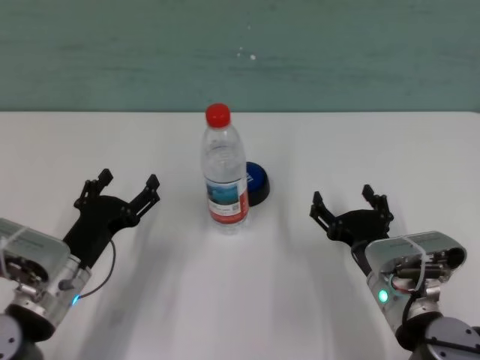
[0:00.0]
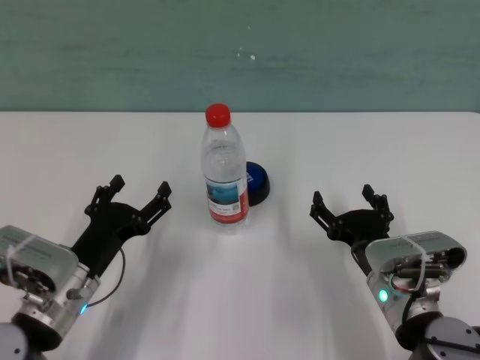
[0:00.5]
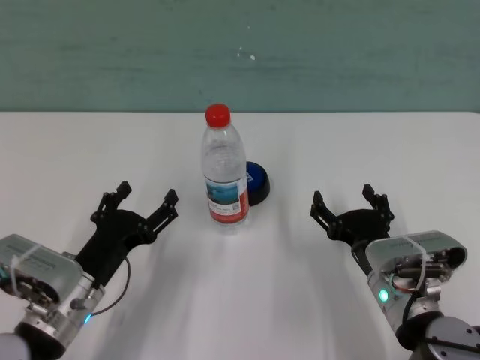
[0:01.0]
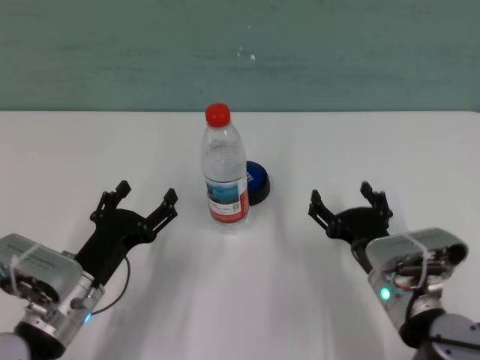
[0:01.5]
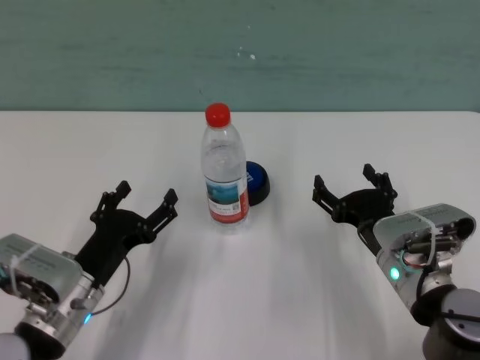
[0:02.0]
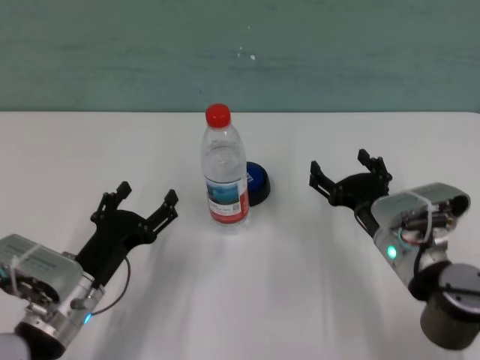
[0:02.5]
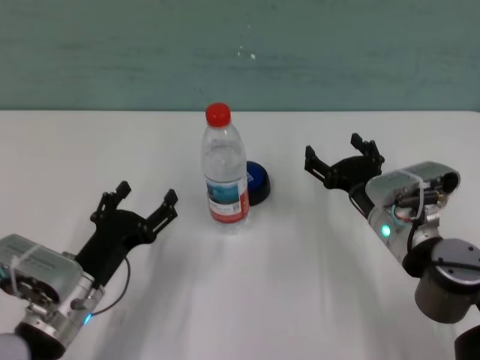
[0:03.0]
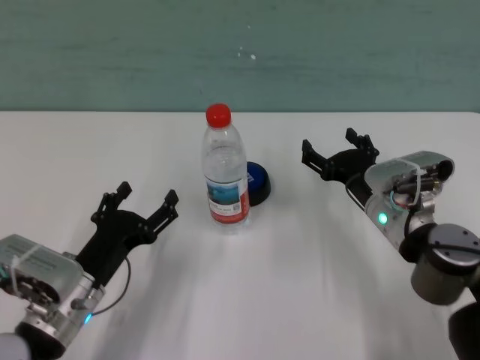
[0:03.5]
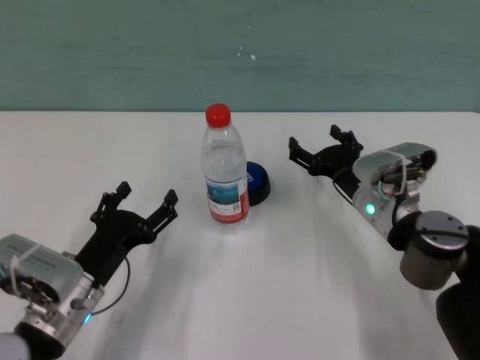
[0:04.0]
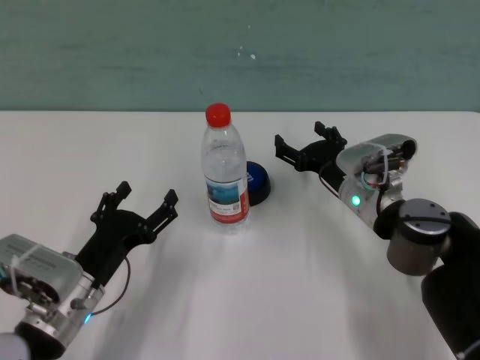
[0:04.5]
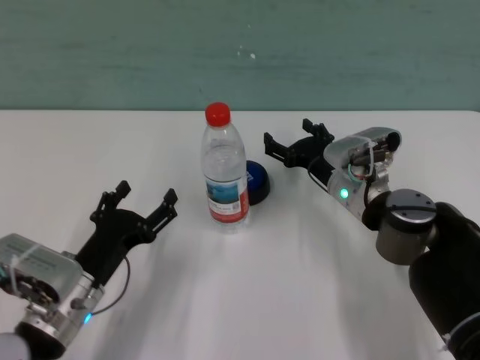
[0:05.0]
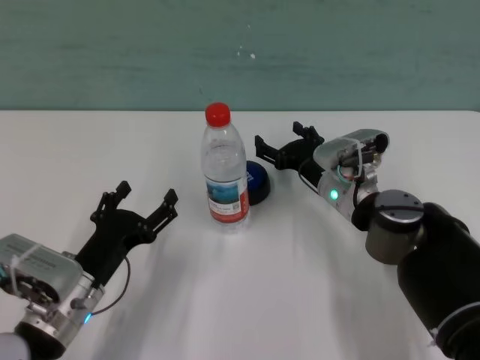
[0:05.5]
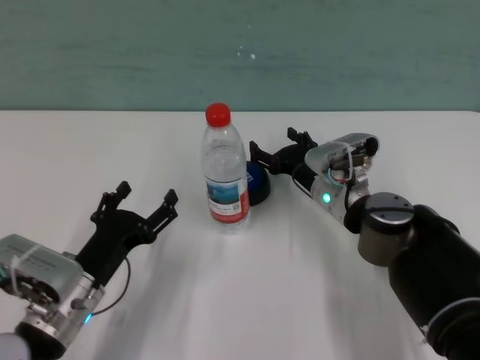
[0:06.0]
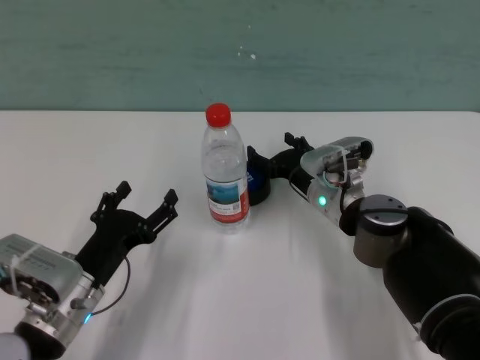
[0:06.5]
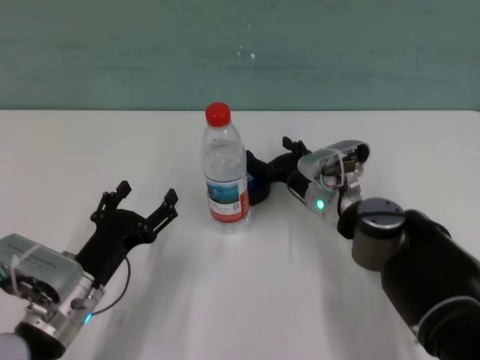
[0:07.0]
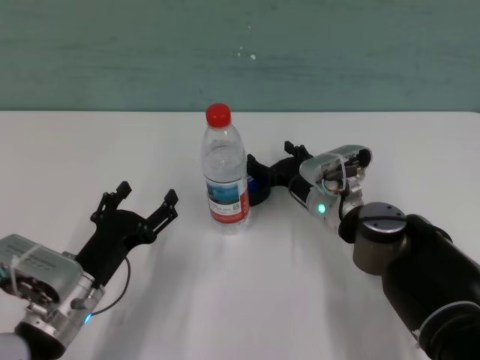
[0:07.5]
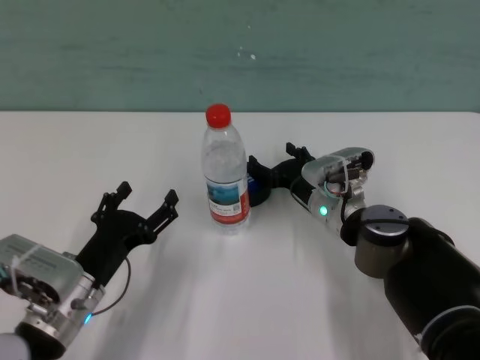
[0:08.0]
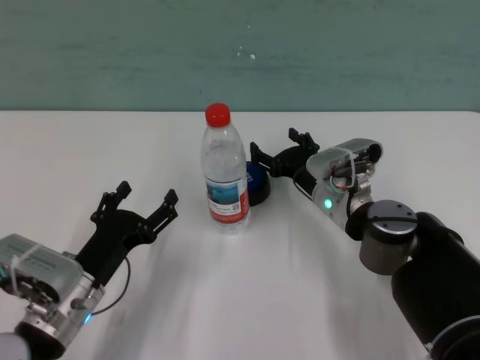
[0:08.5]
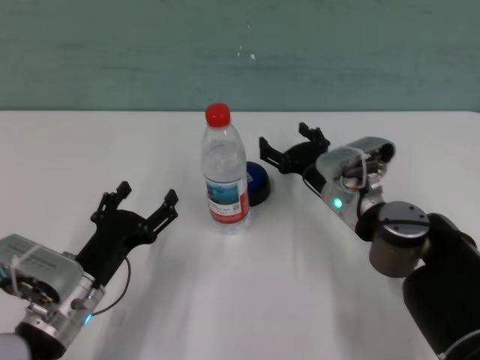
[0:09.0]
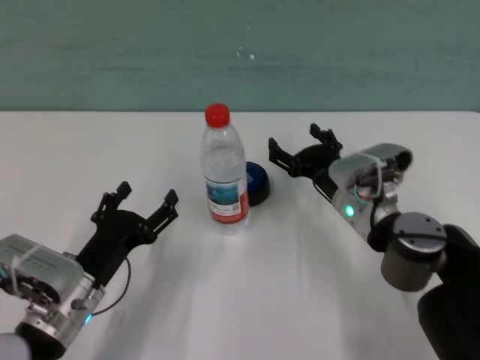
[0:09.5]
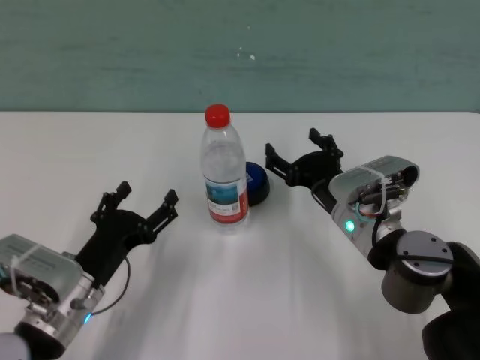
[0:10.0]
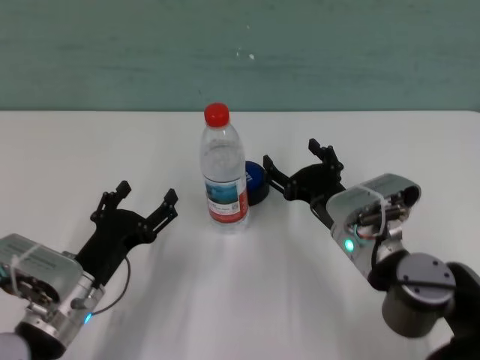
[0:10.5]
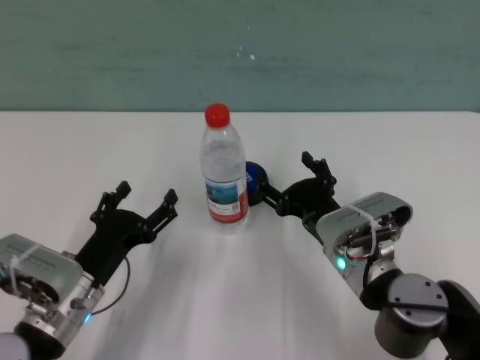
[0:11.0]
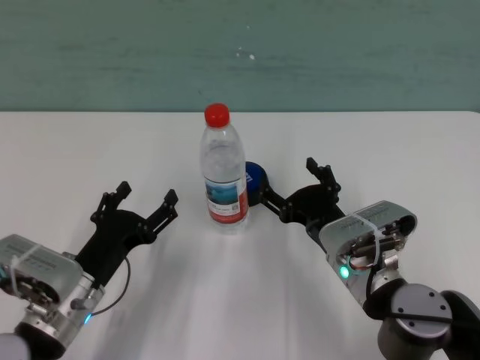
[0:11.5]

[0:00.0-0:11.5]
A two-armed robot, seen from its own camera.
Task of the whole recording: after avoiding the water bottle on the table, press the button.
Step, 0:00.0 to 0:08.0: Press the button blocked by the bottle with right gripper.
